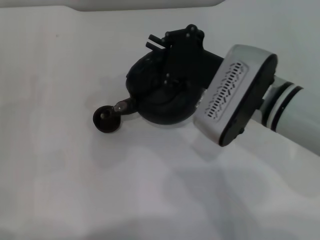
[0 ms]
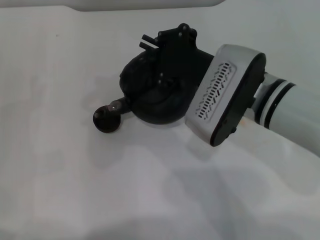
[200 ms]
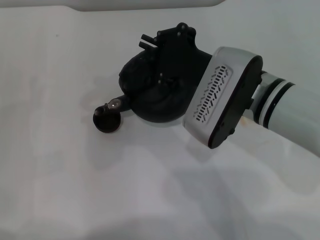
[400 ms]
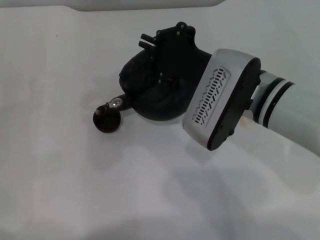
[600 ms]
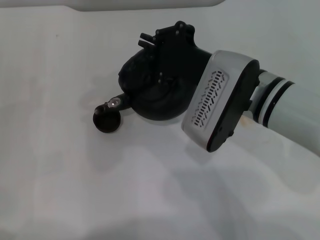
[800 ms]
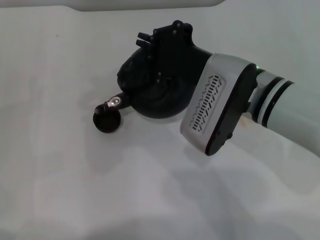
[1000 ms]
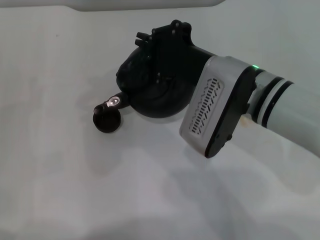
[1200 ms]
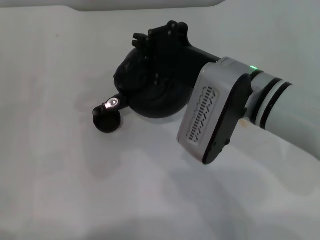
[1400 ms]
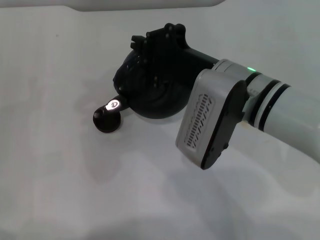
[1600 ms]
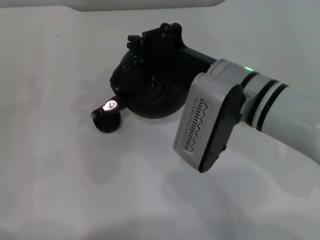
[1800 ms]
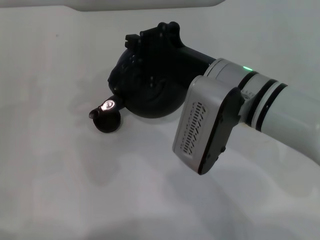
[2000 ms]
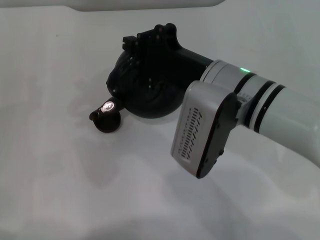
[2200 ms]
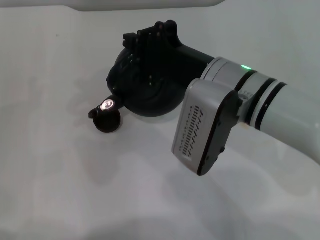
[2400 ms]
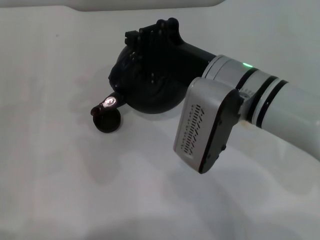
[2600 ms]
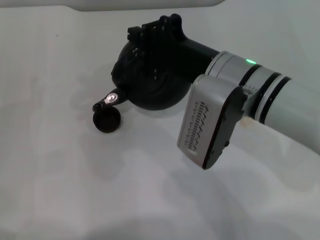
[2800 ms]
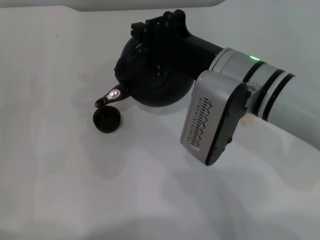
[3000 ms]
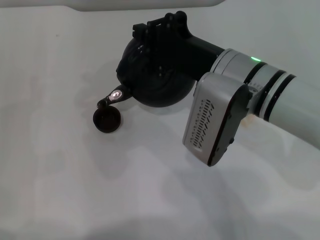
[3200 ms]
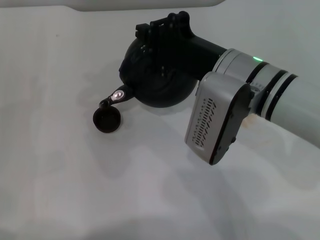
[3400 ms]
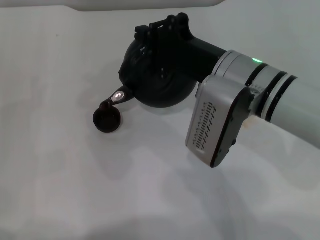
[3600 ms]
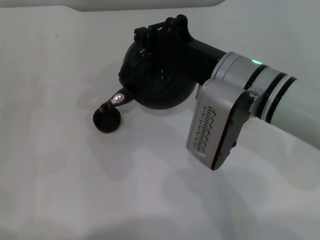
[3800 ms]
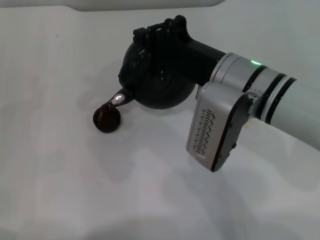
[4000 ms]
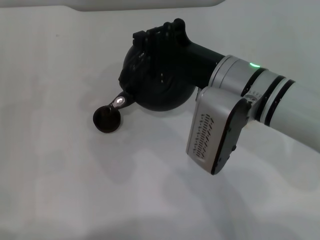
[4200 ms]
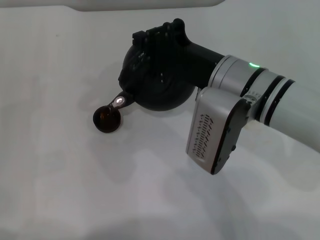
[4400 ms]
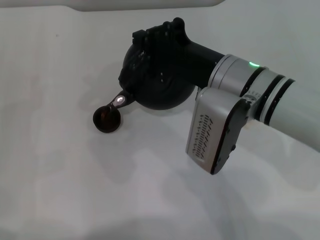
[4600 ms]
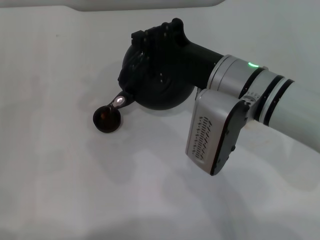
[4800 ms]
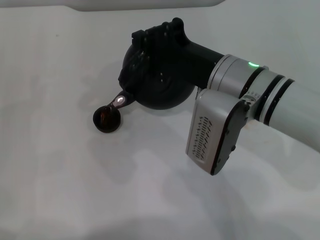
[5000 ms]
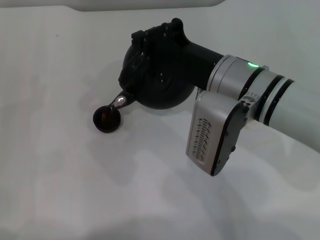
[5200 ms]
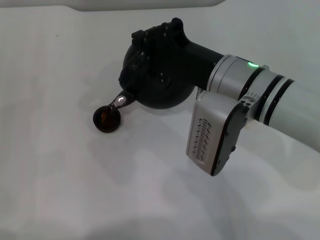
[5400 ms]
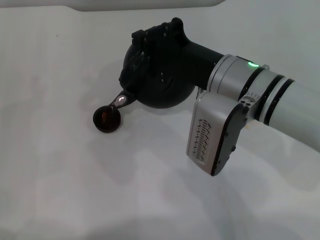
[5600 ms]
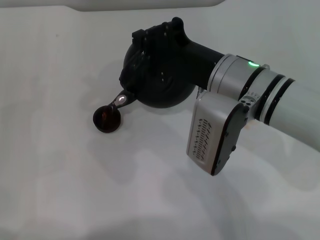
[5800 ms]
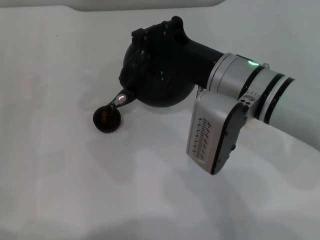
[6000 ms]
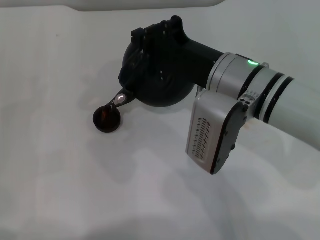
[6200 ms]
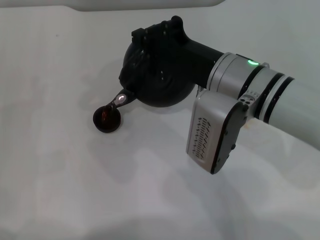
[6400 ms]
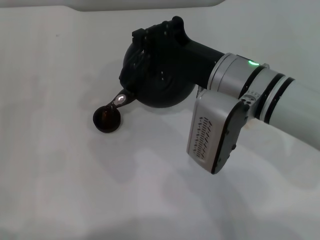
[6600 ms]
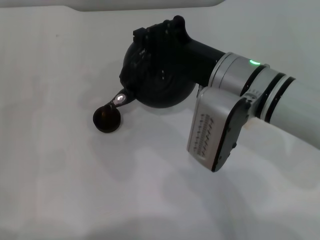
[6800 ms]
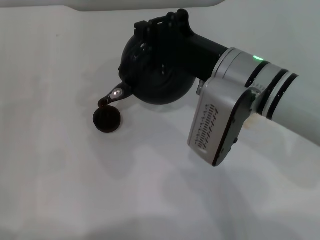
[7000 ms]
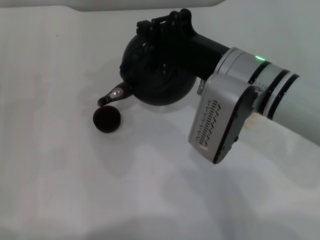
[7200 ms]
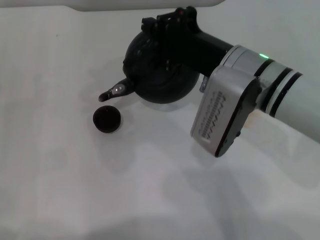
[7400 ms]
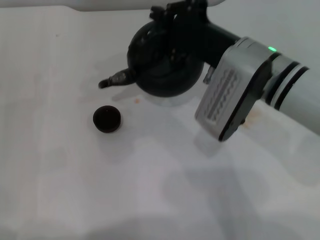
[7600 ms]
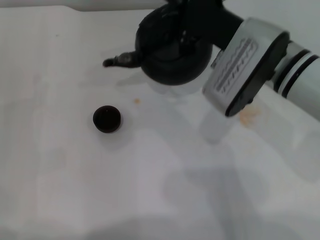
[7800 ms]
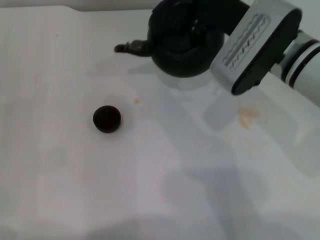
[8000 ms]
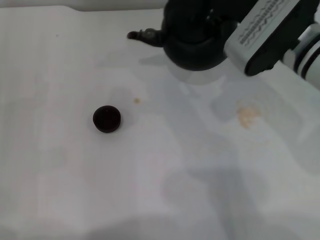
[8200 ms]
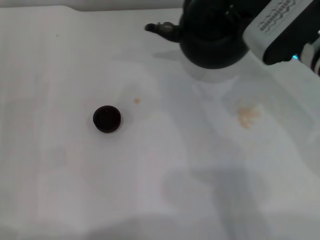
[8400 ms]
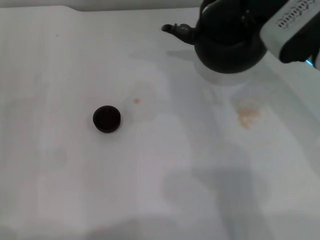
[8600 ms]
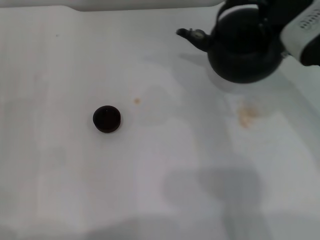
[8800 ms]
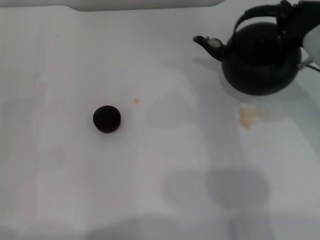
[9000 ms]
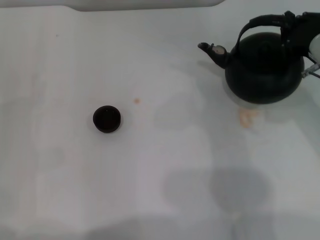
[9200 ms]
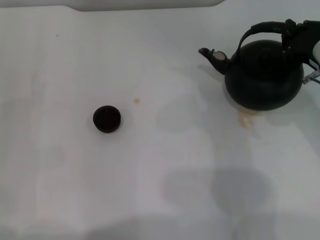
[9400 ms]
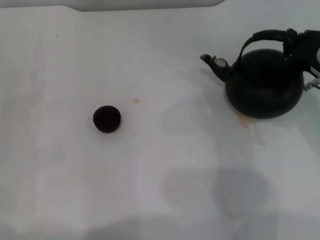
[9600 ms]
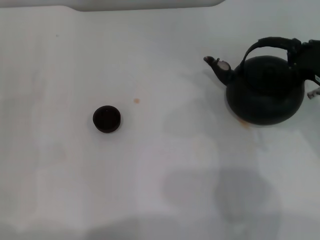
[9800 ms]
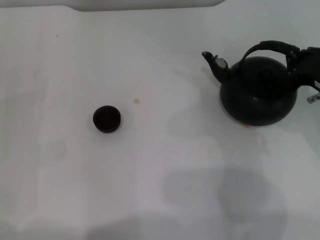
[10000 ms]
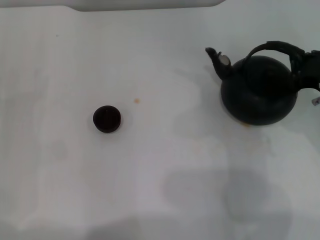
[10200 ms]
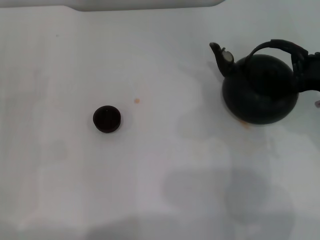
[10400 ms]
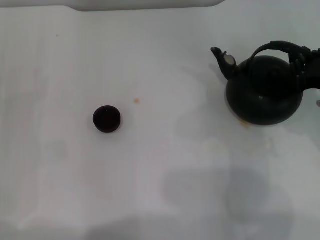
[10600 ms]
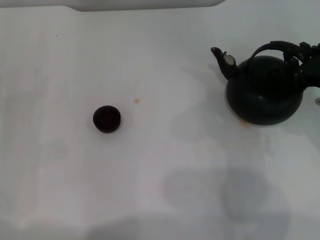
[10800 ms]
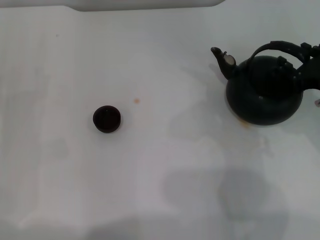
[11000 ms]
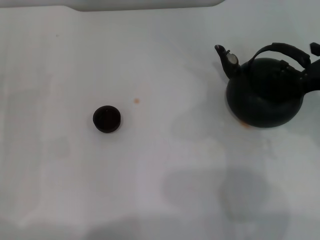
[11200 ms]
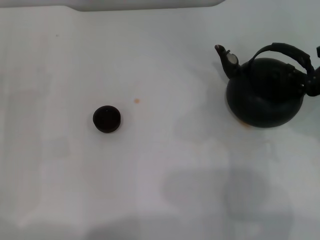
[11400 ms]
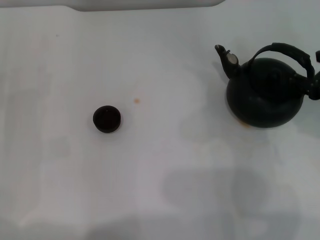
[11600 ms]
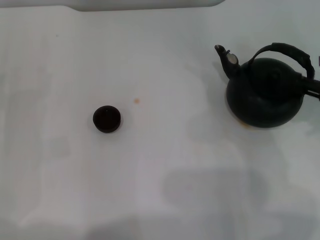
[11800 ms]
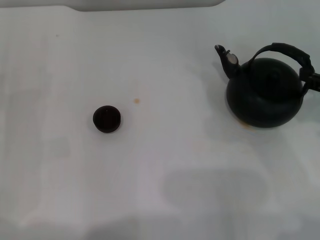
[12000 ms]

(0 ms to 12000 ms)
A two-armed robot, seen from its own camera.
Task of the whole recording: Grasp the handle of the teapot with one hand and pour tea into the teacup.
Step, 0 ms - 7400 ms: Pour tea into the teacup with the right gripper.
Step, 7600 ms - 11400 ms: Put down the teapot with the right gripper.
0 ms - 1600 ms: The grippers move only a little.
1600 ms - 4400 ms: The grippers make only small movements.
4400 ms - 6000 ms: Neither gripper changes place.
6000 ms - 7600 ms: The grippers make only small movements.
7600 ms - 9000 ms: The right gripper goes some 10 cm to the right.
9000 ms - 10400 ms: The right gripper shifts by about 5 cm.
10400 ms - 12000 ms: The right gripper is displaced to the right by roughly 5 cm, and opens its fingers.
